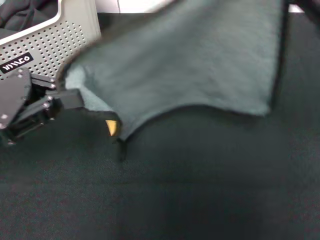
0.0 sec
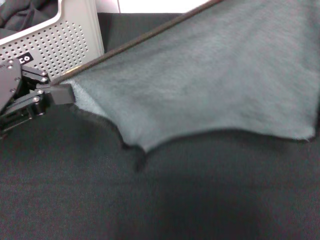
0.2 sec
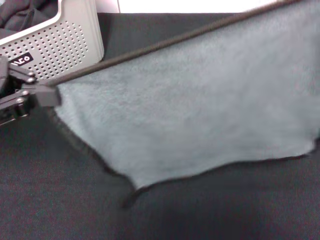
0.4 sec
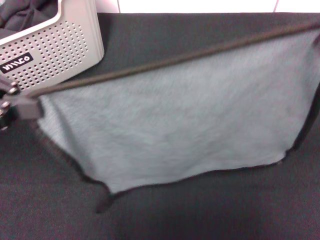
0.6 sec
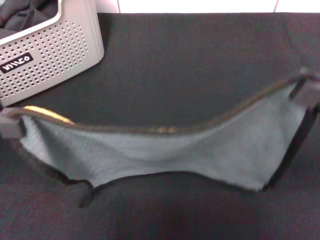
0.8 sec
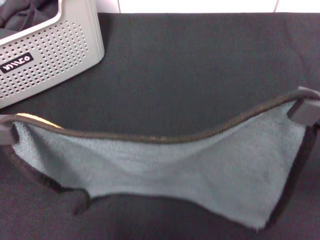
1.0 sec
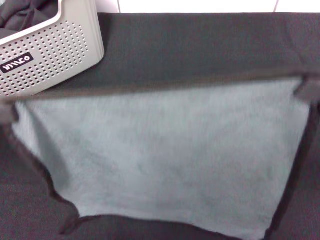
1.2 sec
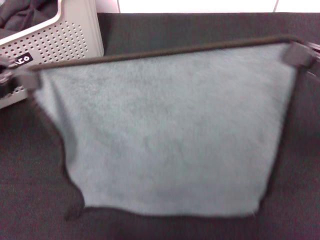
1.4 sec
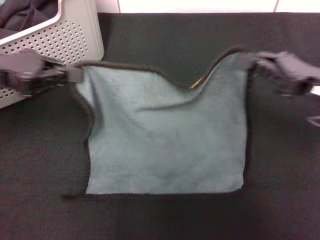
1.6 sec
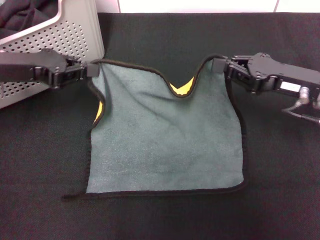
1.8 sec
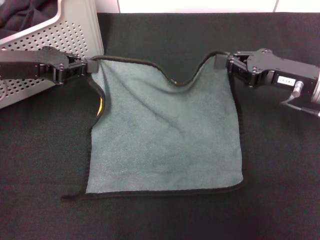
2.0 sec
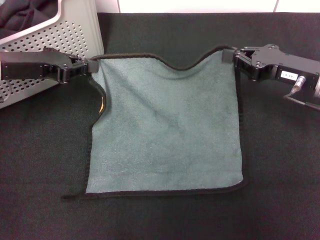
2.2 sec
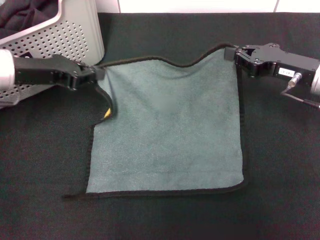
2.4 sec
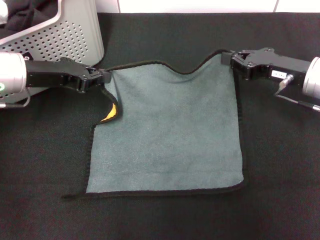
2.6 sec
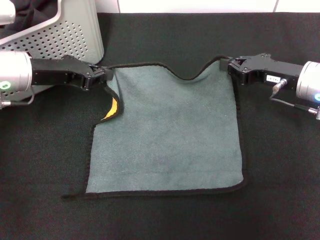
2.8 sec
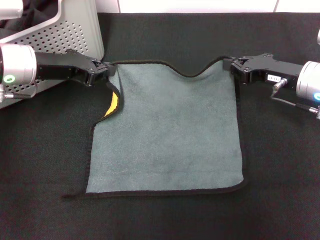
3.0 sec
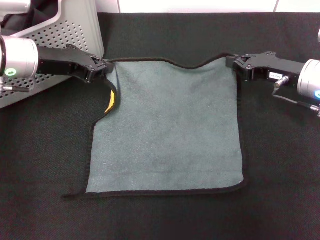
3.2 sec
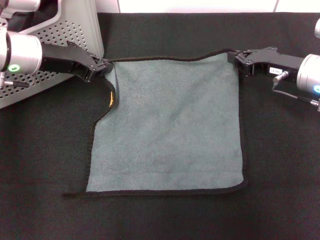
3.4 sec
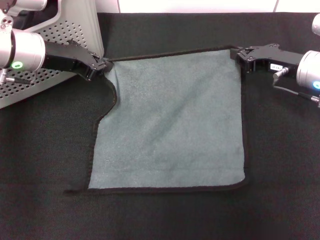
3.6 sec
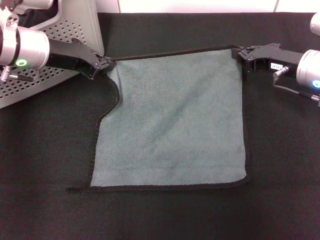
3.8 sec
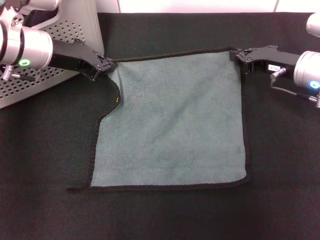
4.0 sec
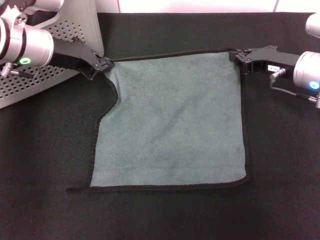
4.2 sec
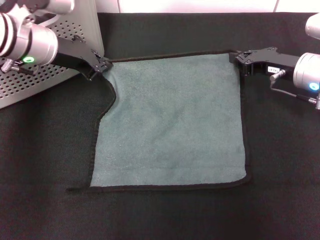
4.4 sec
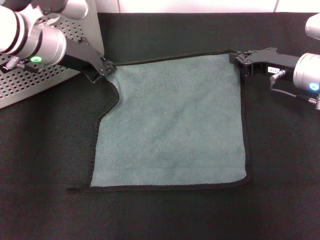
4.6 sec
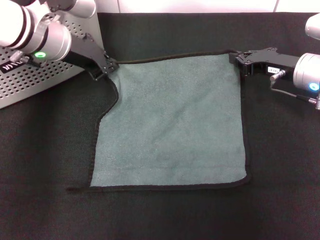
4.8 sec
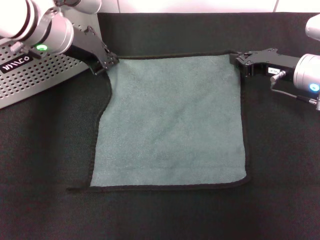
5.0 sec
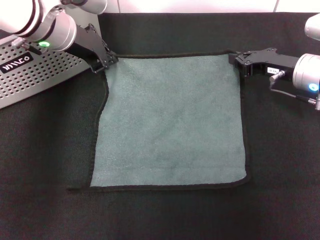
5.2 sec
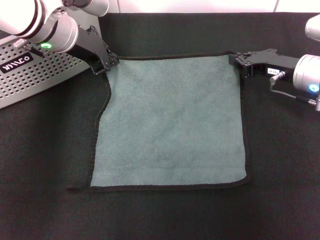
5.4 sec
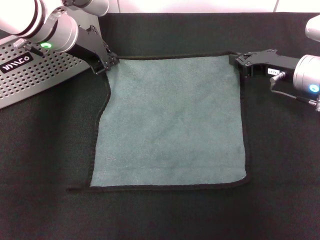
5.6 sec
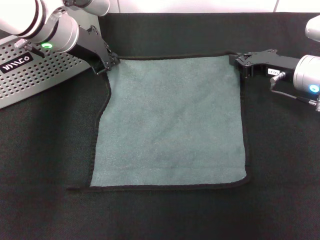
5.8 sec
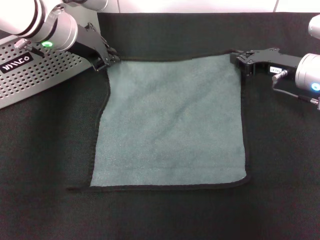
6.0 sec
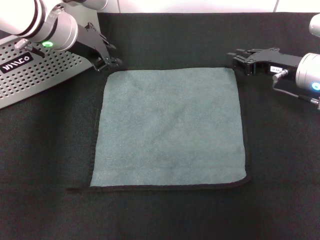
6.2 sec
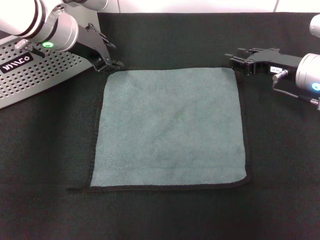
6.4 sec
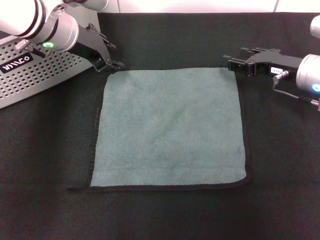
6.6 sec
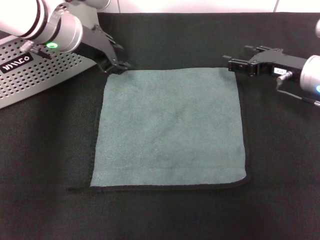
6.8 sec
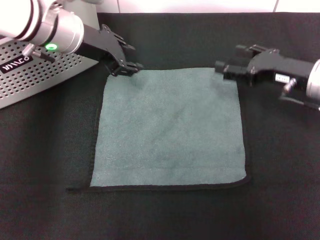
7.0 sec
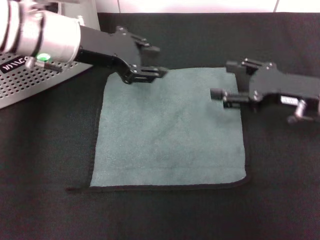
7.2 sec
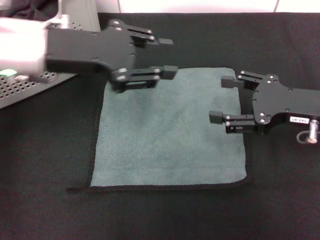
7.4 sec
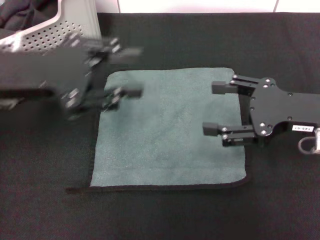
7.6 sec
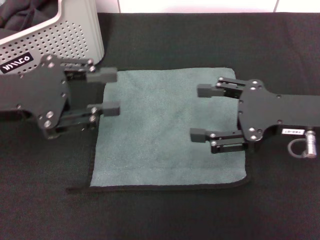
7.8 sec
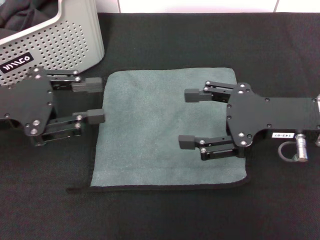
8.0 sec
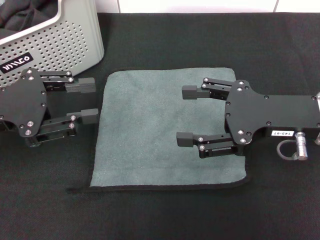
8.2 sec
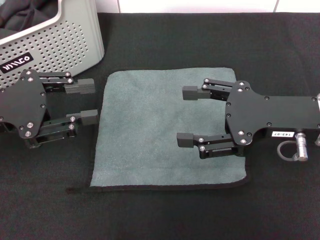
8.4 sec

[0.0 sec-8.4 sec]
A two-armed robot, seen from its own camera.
Task of the whole recording: pick up the towel from the storage box and lay it flat on the black tablecloth.
Step, 0.0 sec to 6.0 sec: Spread the towel flat with the right gripper.
0.0 sec to 1.4 sec: The left gripper shifts some 5 cm upward. Meanwhile the right gripper travels downward by approximately 10 cm.
1.4 sec to 2.8 sec: The right gripper shifts some 15 cm forward, downward and to the left. Meanwhile the left gripper heads downward, forward and to the right, covering some 15 cm.
2.8 sec to 4.2 sec: The left gripper changes place by approximately 5 cm.
4.2 sec to 5.6 sec: The left gripper shifts by about 5 cm.
5.6 sec to 7.0 sec: The right gripper opens its fingers, while the left gripper opens up.
7.0 sec to 8.4 sec: The left gripper travels backward and to the left by roughly 20 cm, while the right gripper goes roughly 10 cm backward and upward.
